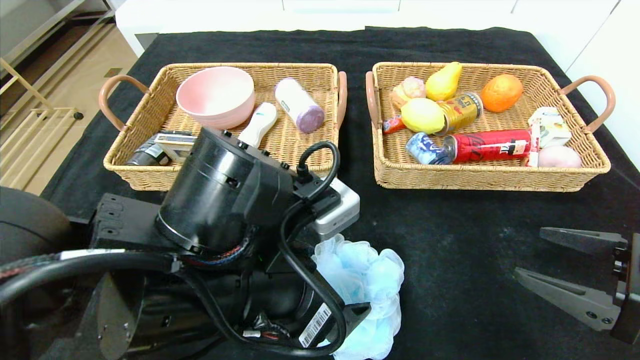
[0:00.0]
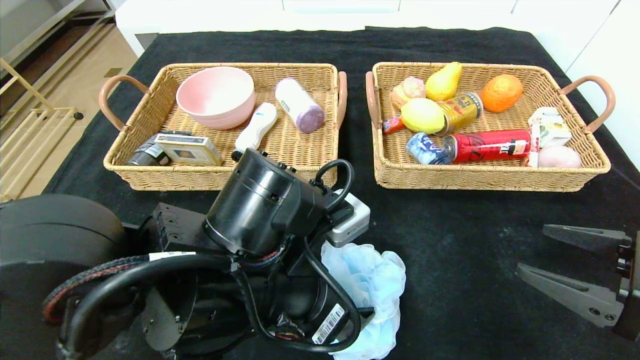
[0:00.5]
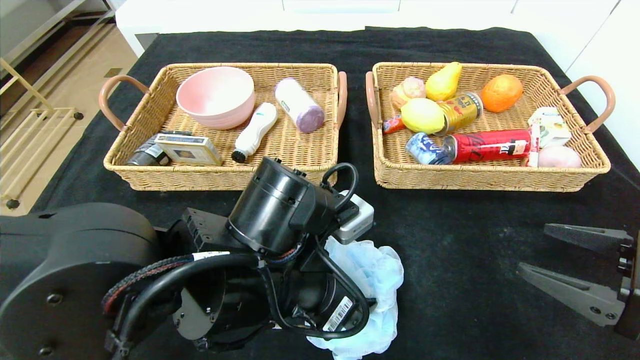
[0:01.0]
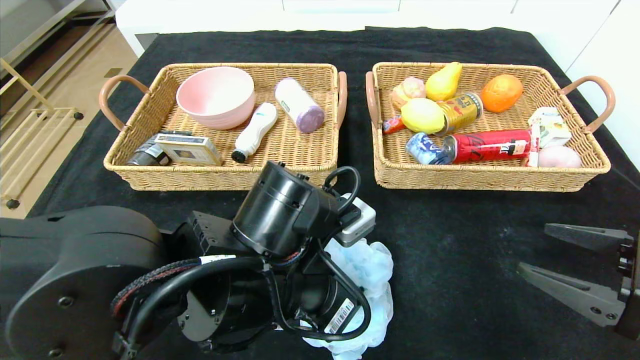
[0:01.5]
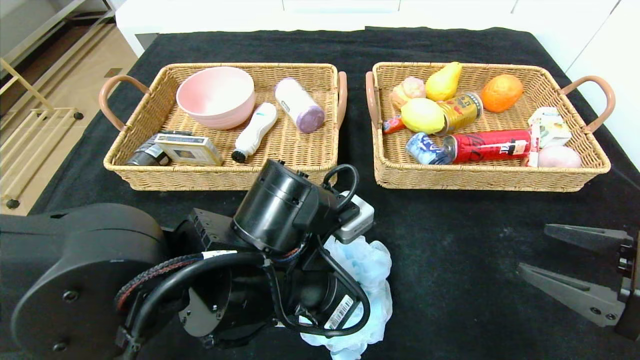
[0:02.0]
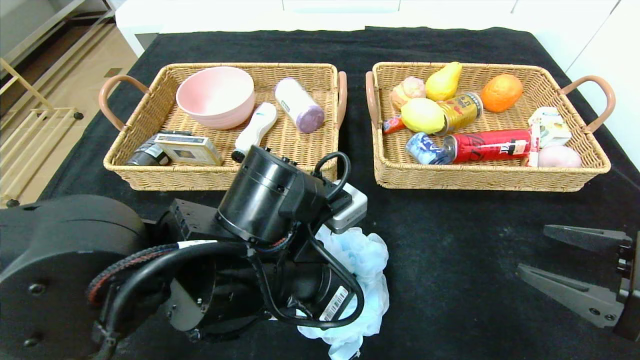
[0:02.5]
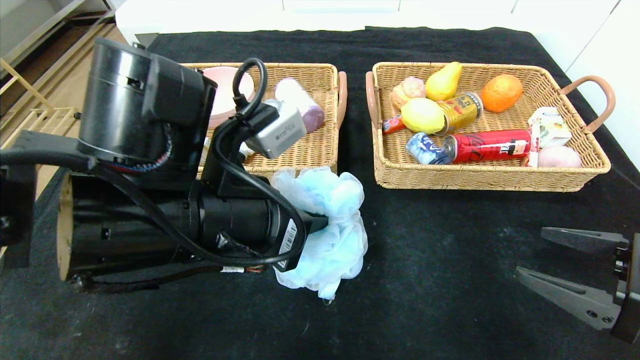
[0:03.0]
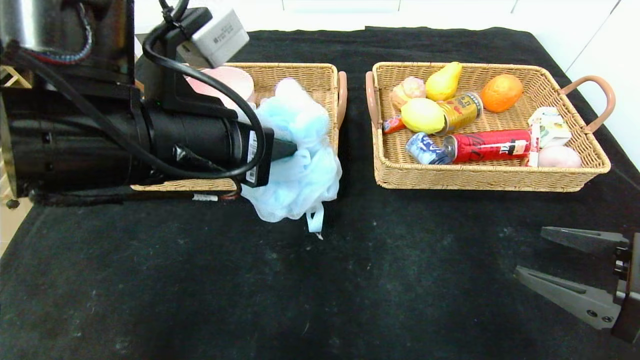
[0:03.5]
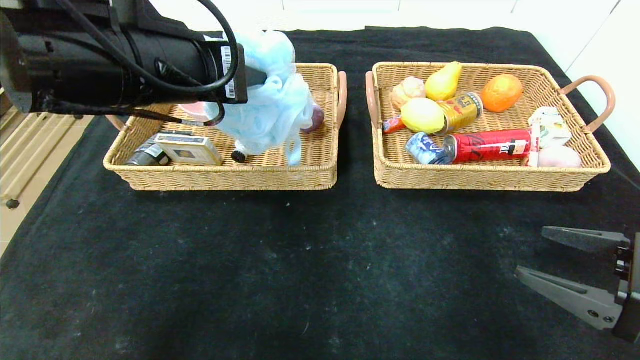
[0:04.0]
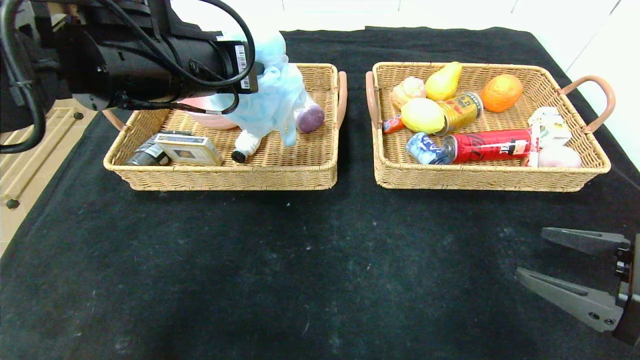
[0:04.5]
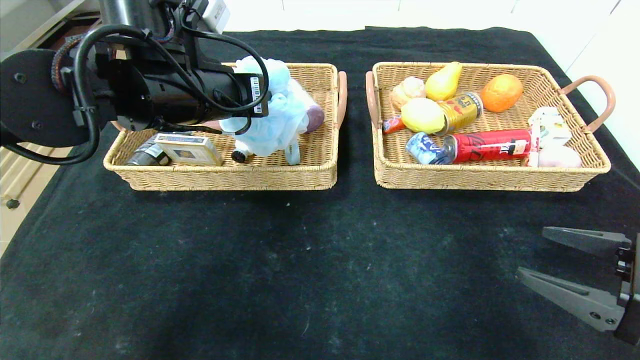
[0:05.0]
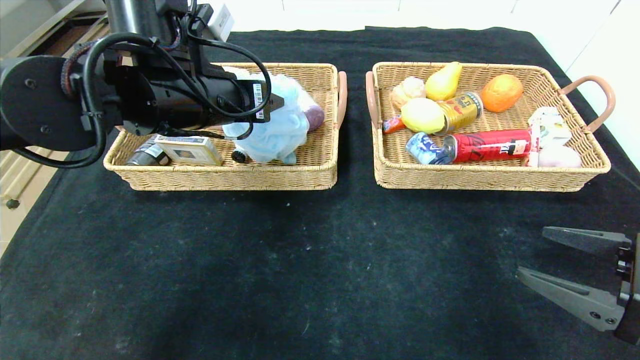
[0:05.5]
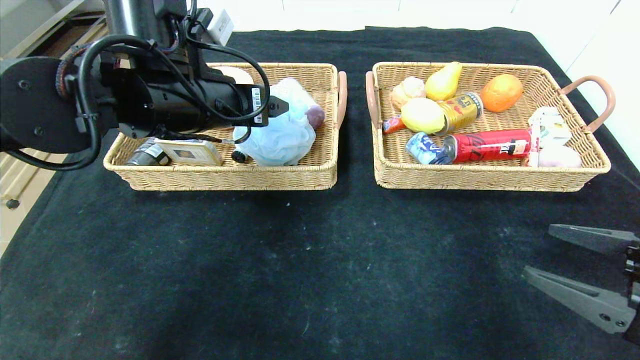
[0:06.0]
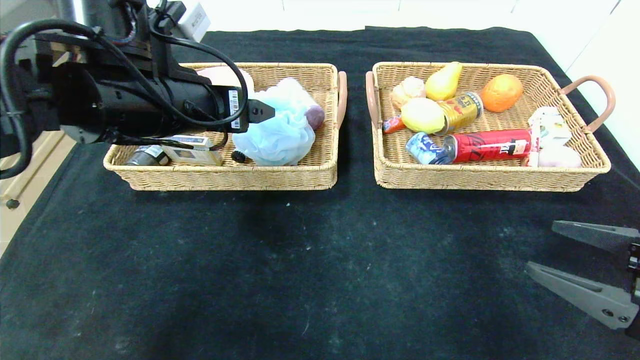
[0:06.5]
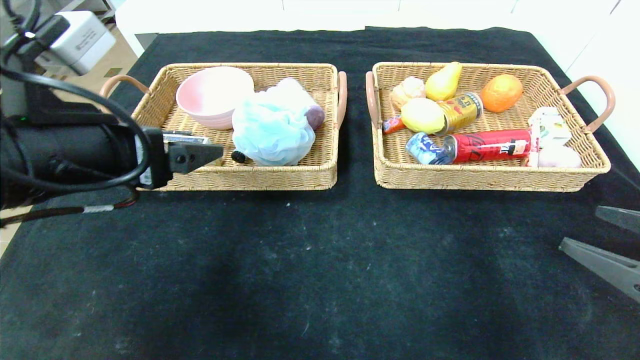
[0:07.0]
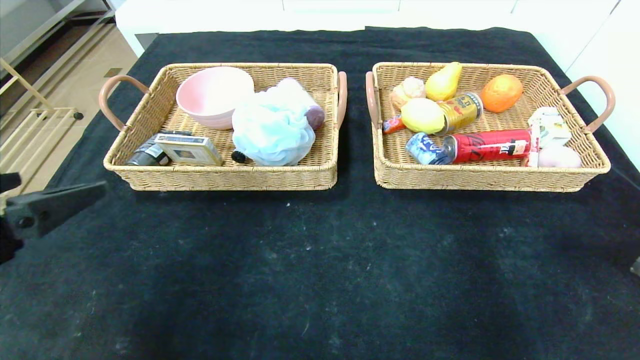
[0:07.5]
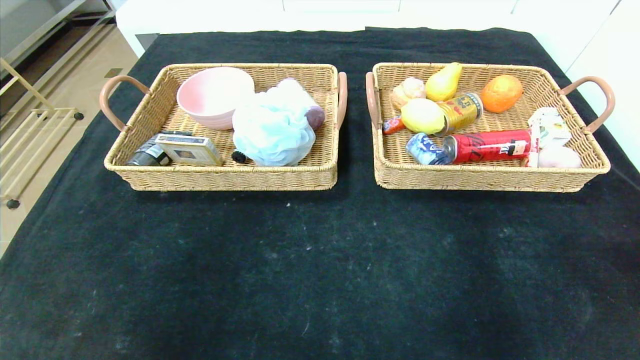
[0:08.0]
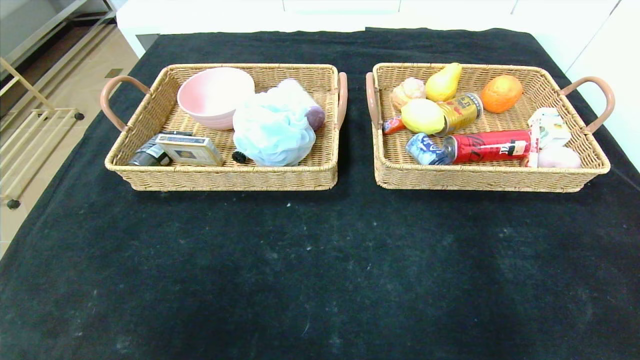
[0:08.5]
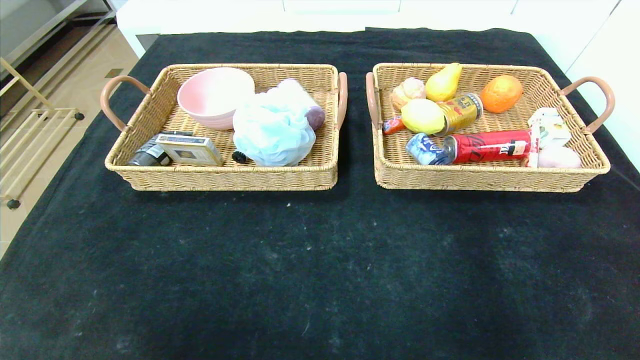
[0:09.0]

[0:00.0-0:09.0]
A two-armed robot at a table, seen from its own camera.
Step, 0:00.0 to 0:07.0: Pick up the bath ball and put it in the left basket.
0:00.0 to 0:02.0: The left gripper closes its fingers.
0:02.0 to 0:04.5: The left gripper moves upward, to the left and forward, some 20 cm.
0:04.5 to 0:07.0: The left gripper shifts approximately 10 cm backward and to the left, and opens its fingers.
0:07.0 to 0:09.0: The right gripper moves backward, approximately 20 cm. Meanwhile the left gripper heads backward, covering roughly 30 cm.
